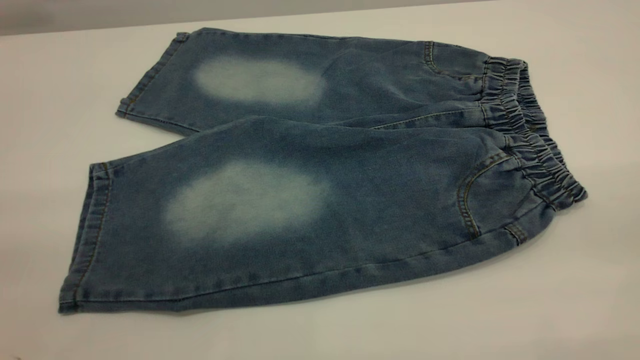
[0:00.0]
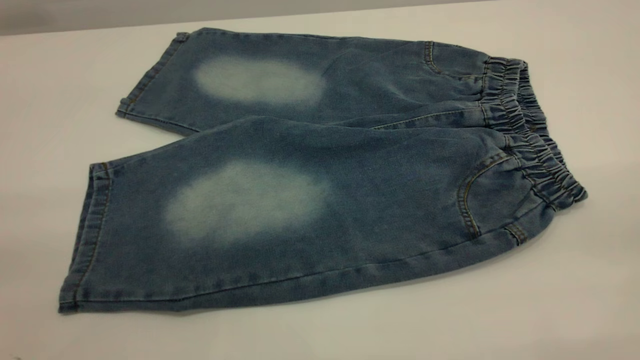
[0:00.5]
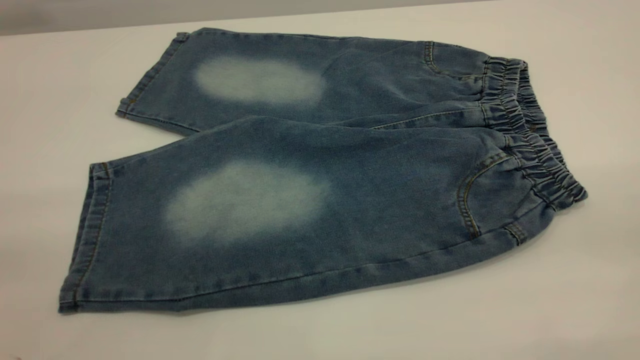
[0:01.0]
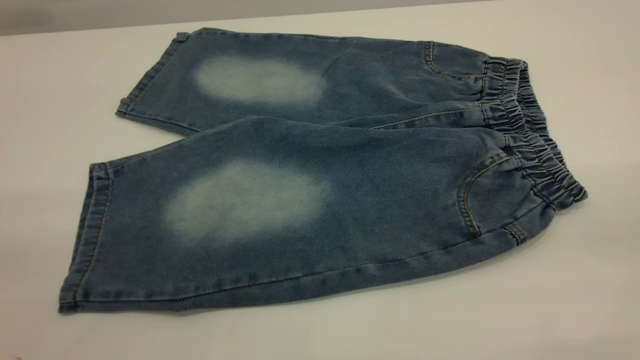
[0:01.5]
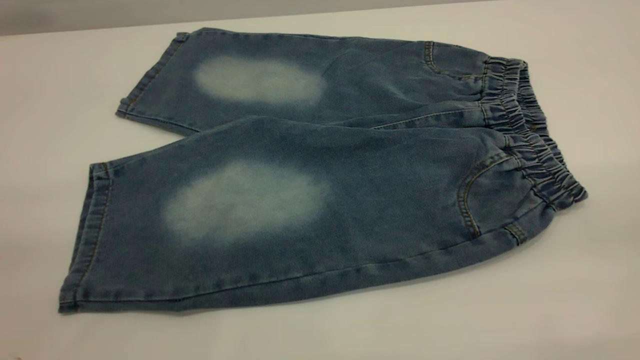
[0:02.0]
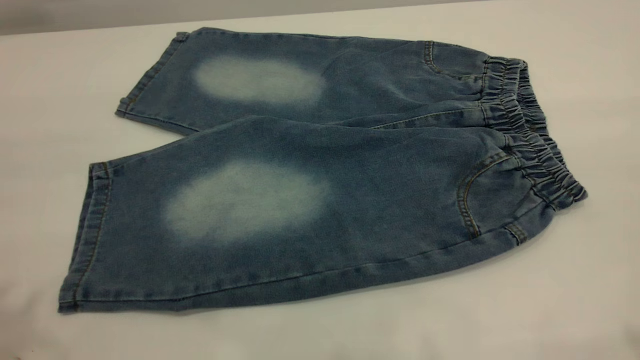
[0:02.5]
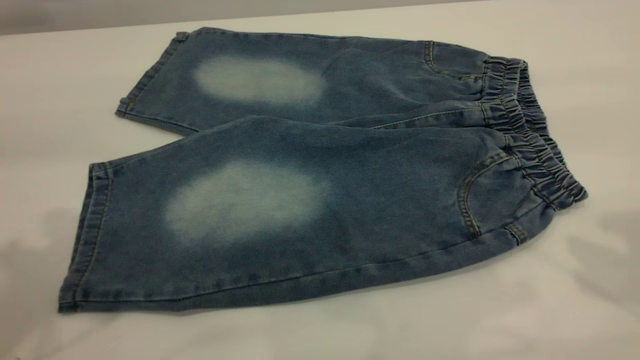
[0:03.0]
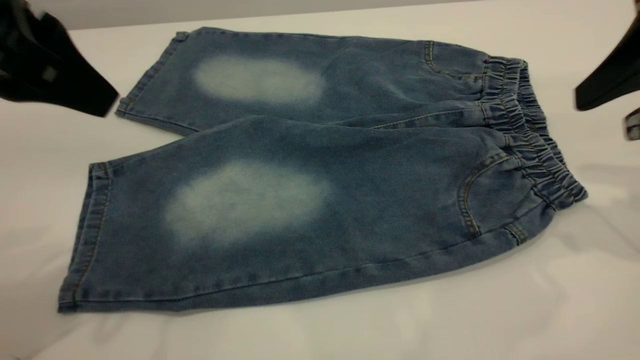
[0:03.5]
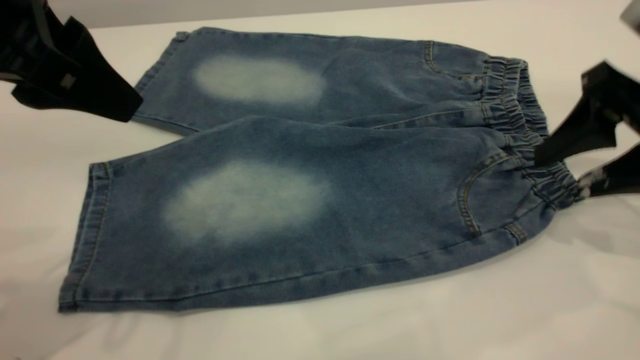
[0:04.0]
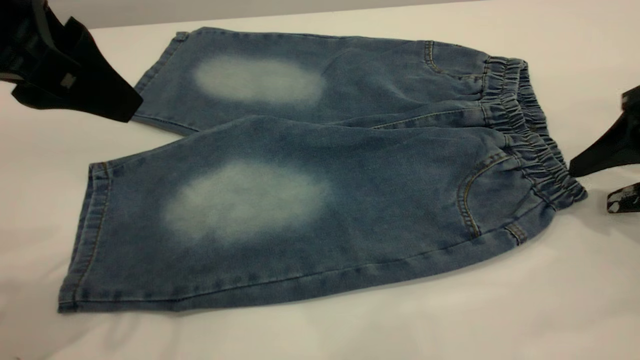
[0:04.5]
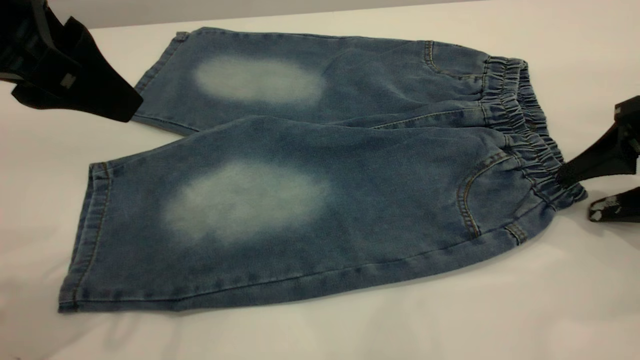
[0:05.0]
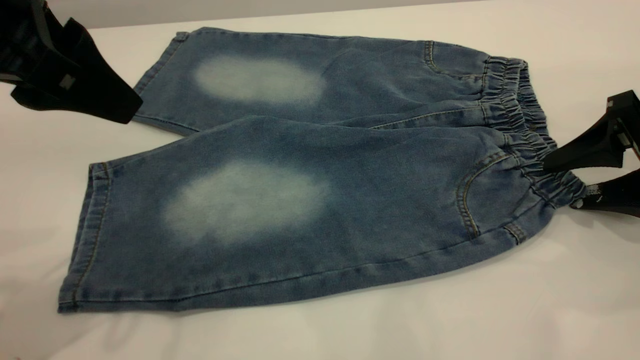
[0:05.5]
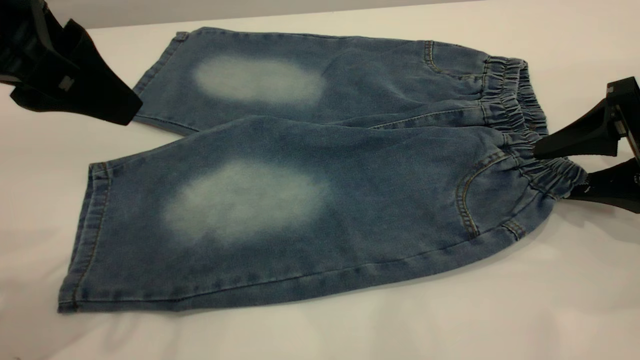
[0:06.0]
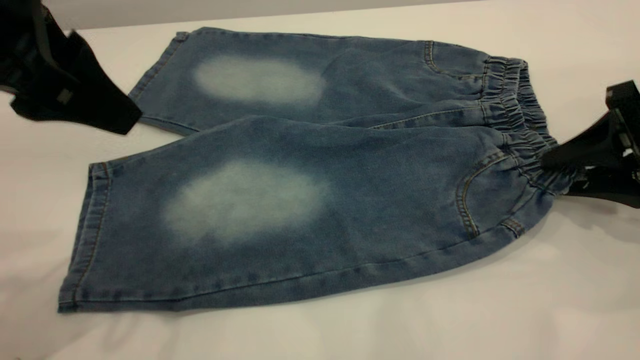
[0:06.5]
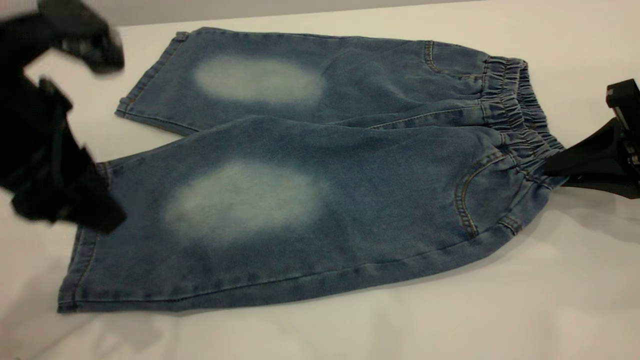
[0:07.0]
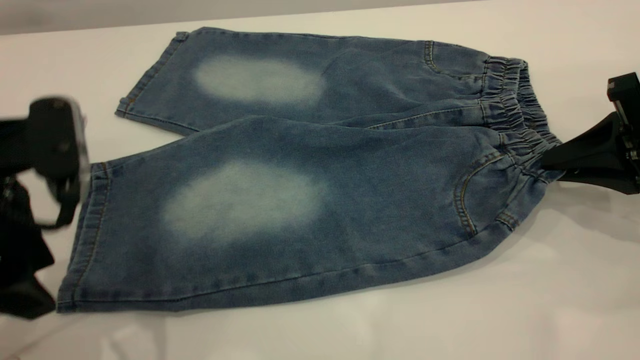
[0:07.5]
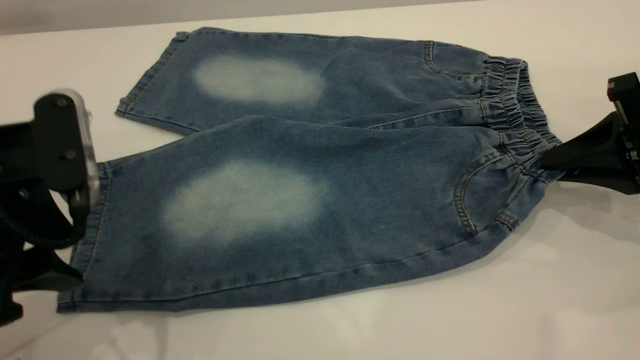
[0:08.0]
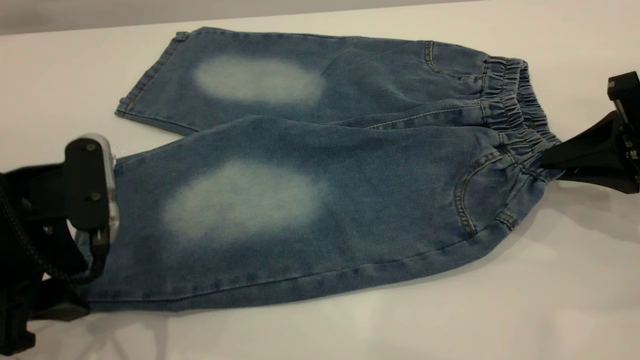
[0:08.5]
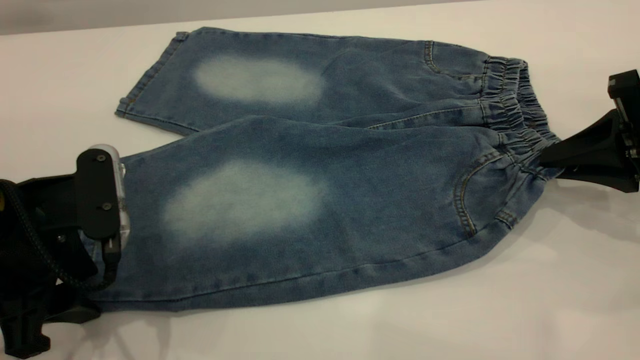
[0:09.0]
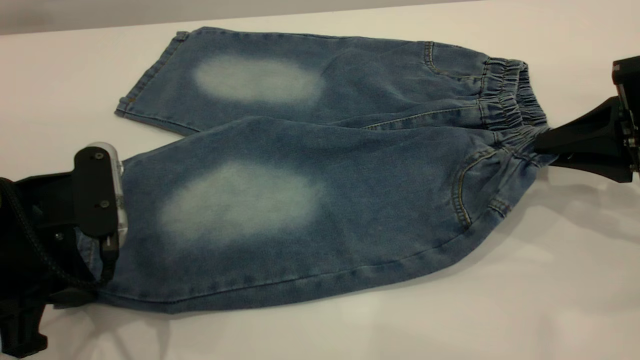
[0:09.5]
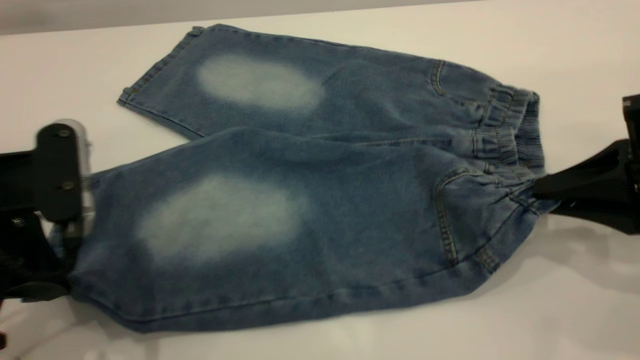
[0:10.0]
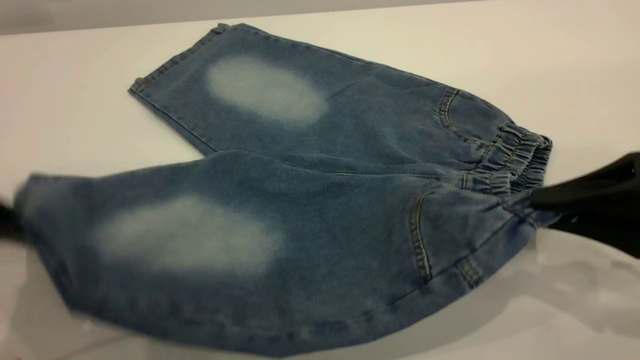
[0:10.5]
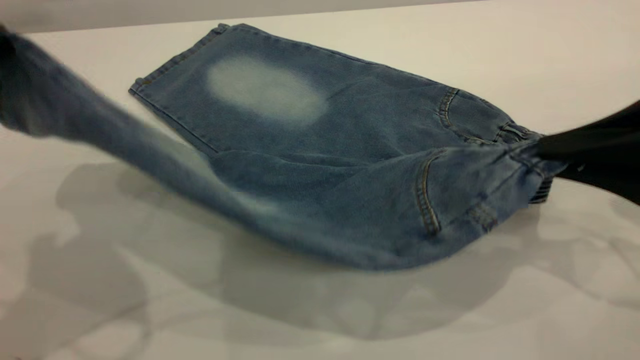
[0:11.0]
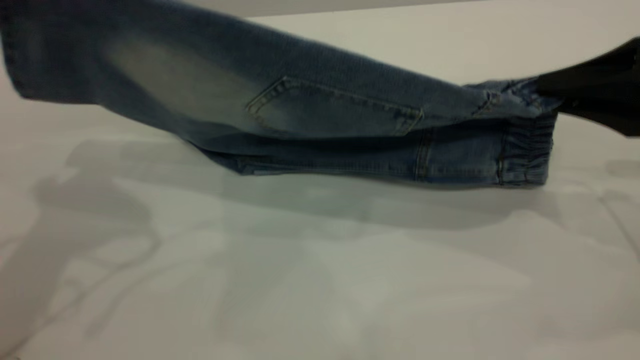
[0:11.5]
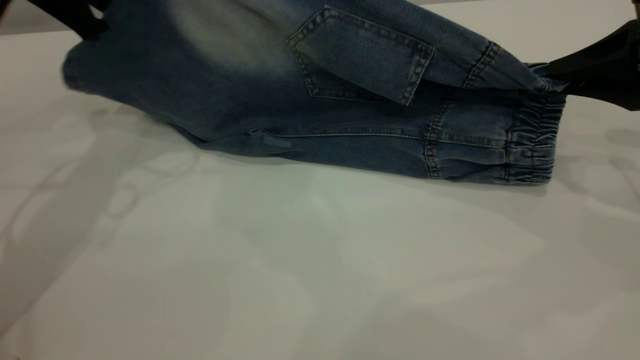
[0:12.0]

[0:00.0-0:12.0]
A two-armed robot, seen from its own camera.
0:02.0 to 0:04.0: The left gripper goes some 25 cm forward, and opens up; the right gripper is displaced forward and downward by about 35 cm.
0:04.0 to 0:06.0: The right gripper shifts by approximately 5 cm.
0:06.0 to 0:08.0: The left gripper is displaced downward by about 10 cm; the right gripper closes up.
0:08.0 to 0:10.0: The right gripper moves backward, roughly 5 cm. The left gripper closes.
0:10.0 to 0:12.0: The left gripper travels forward by roughly 20 cm, while the right gripper travels forward by approximately 10 cm.

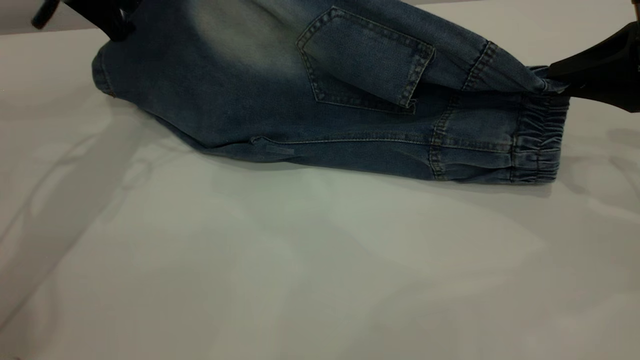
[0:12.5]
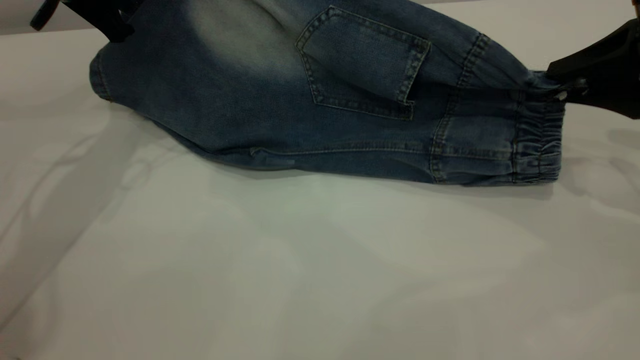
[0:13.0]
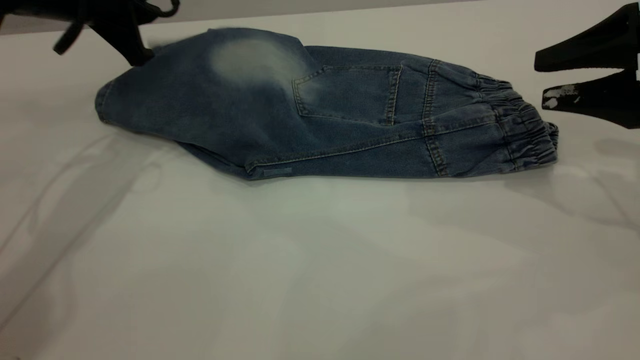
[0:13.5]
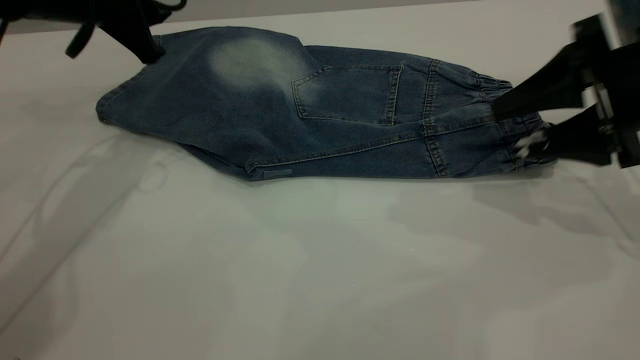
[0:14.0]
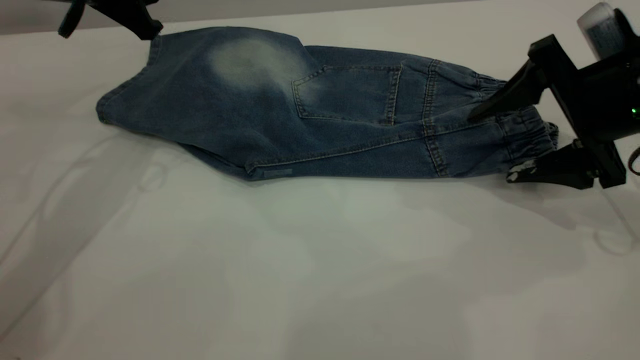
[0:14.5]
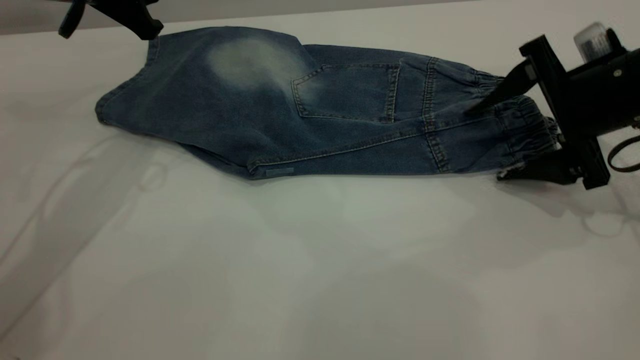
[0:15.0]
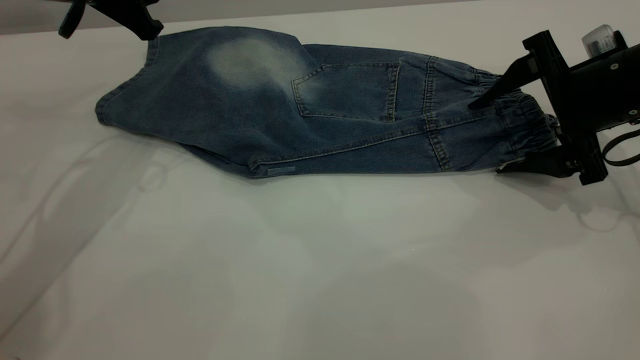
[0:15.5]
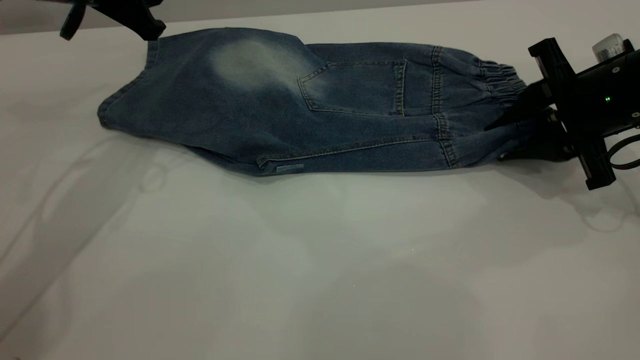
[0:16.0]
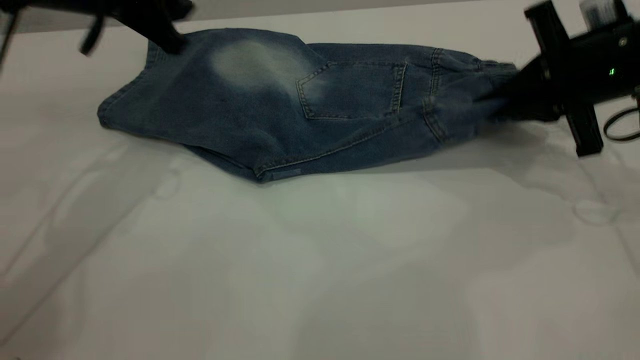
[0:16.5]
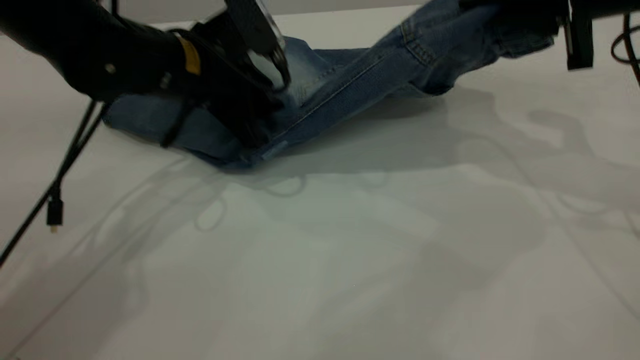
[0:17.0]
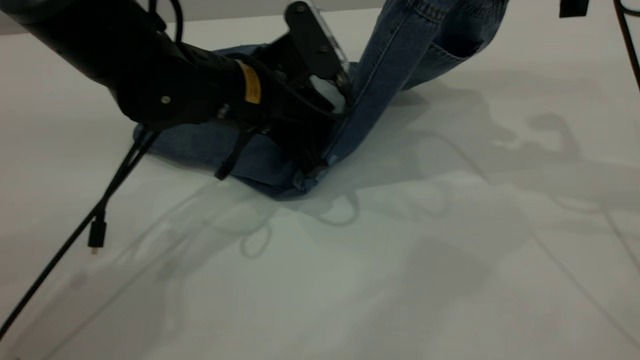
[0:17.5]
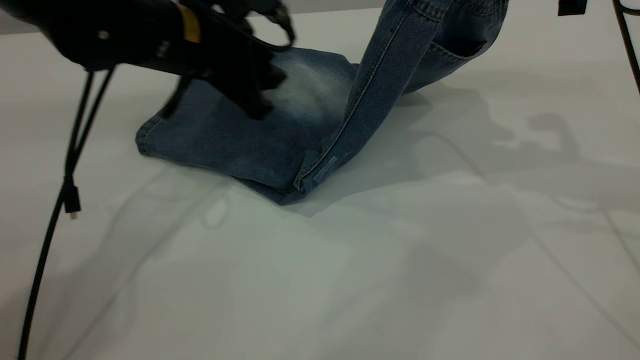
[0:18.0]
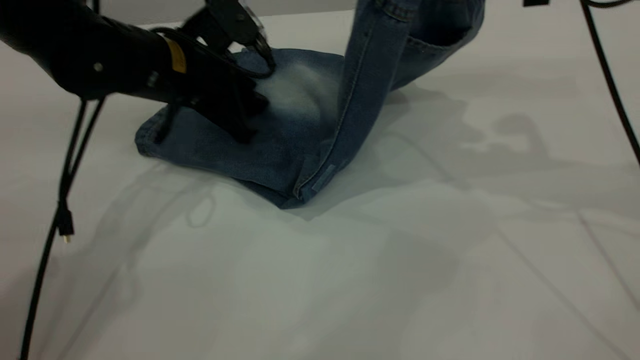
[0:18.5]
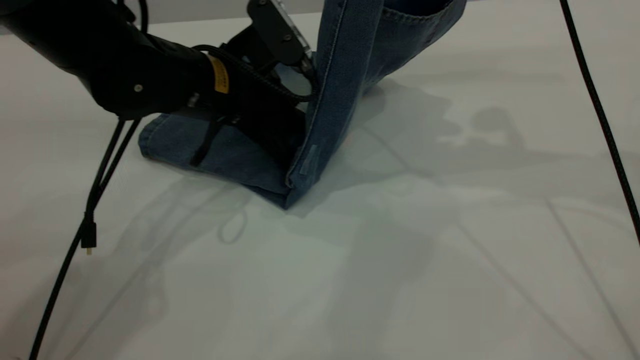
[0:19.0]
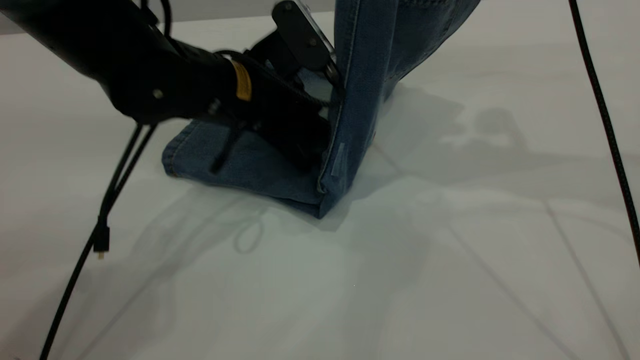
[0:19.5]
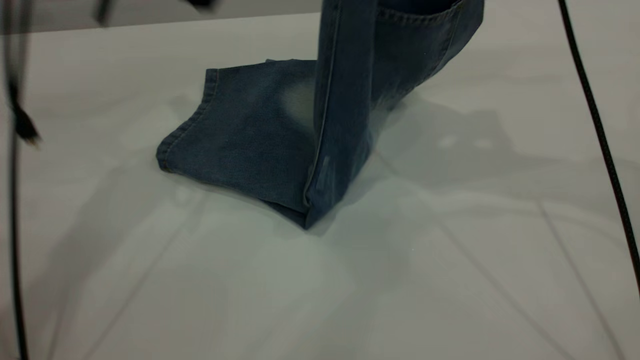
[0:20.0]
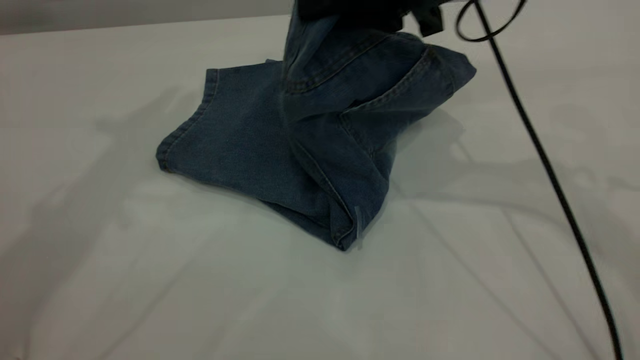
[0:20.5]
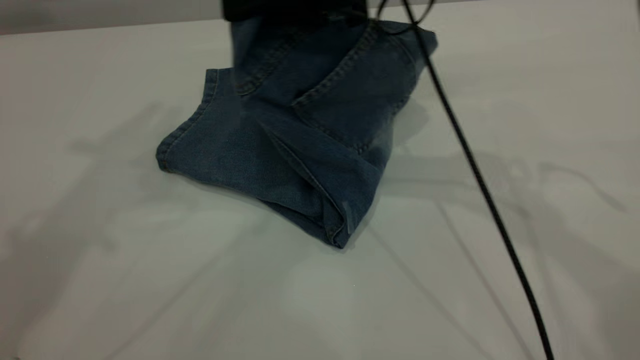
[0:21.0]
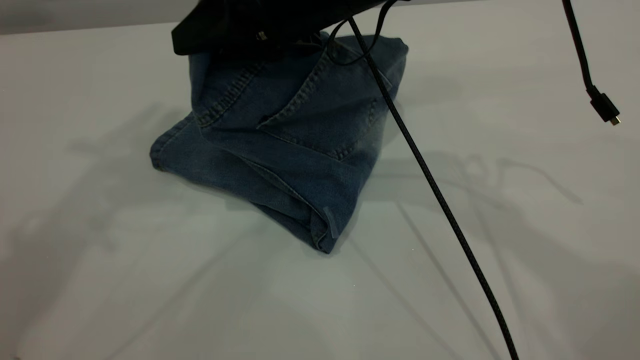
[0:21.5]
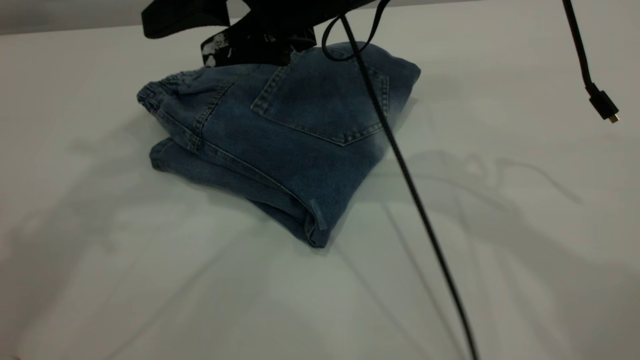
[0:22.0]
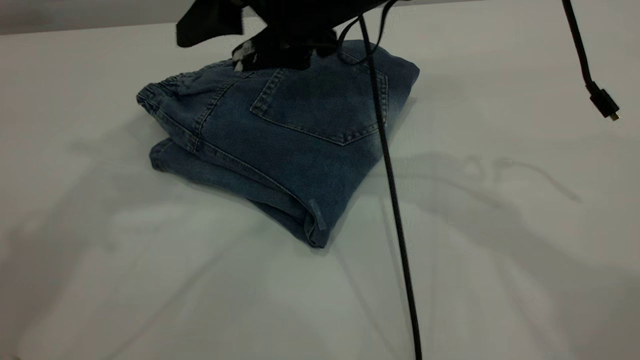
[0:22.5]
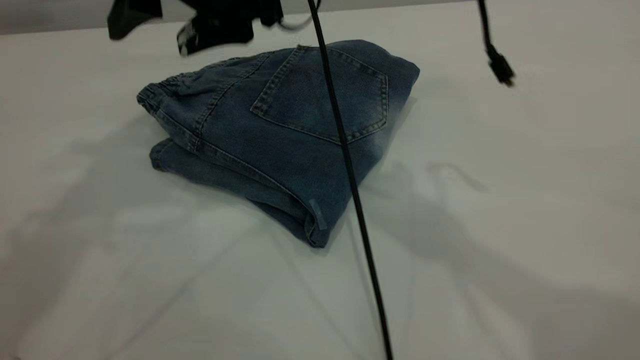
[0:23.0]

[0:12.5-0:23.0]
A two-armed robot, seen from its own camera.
Step, 0:14.0 to 0:22.0: Fold your pants from right to left.
0:12.5 to 0:14.5: The right gripper heads to the left, covering about 5 cm, and opens its fingers, while the left gripper opens its fingers.
0:14.5 to 0:16.5: The right gripper closes.
0:16.5 to 0:19.0: The right gripper shifts approximately 15 cm upward and to the left. Meanwhile the left gripper swings left and right, approximately 10 cm each way, with 2 reversals.
0:19.0 to 0:21.0: The left gripper travels upward by approximately 35 cm. The right gripper travels to the left by roughly 15 cm.
0:21.0 to 0:23.0: The right gripper shifts about 10 cm to the left, and opens.
